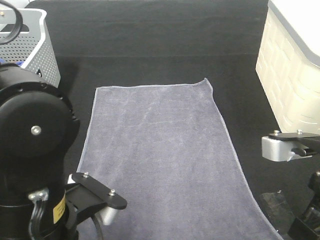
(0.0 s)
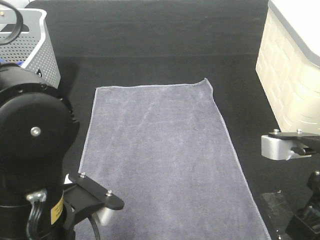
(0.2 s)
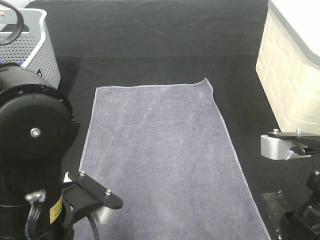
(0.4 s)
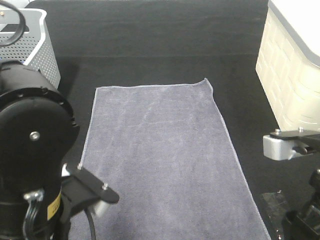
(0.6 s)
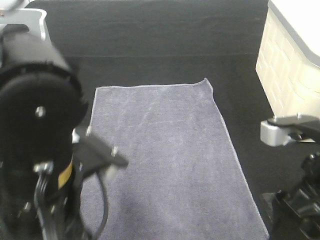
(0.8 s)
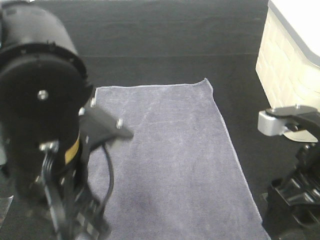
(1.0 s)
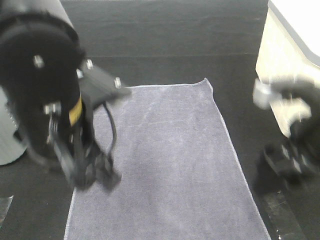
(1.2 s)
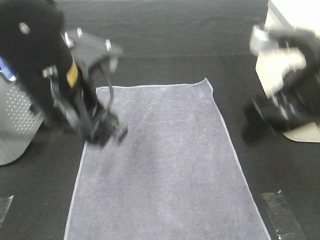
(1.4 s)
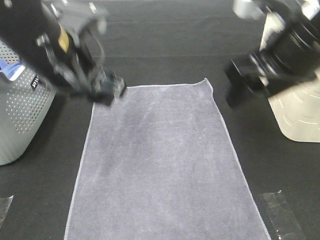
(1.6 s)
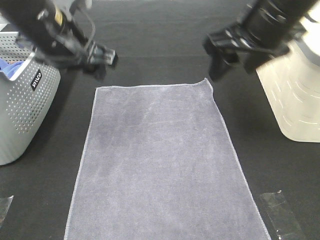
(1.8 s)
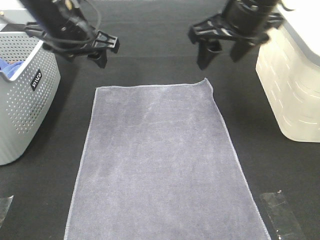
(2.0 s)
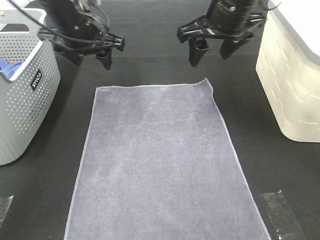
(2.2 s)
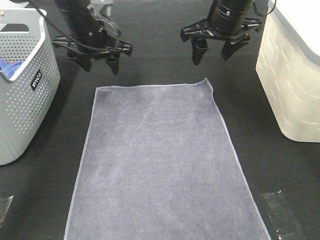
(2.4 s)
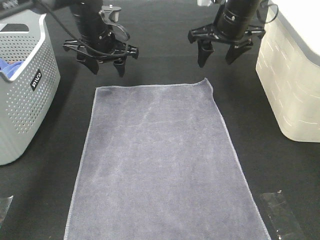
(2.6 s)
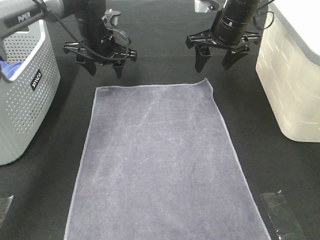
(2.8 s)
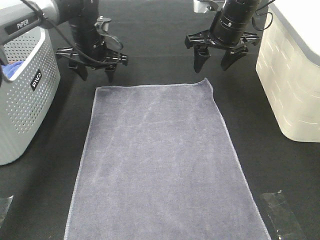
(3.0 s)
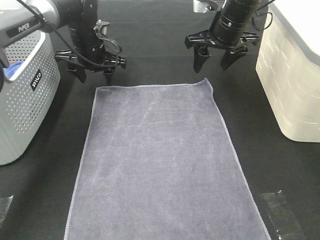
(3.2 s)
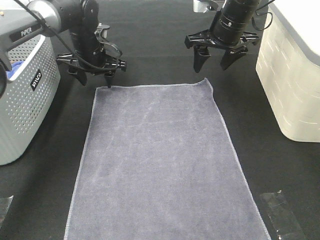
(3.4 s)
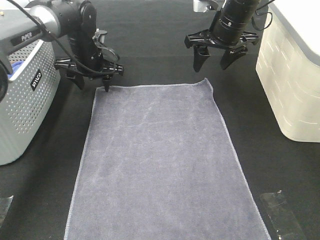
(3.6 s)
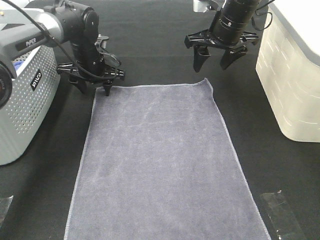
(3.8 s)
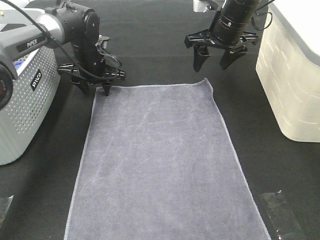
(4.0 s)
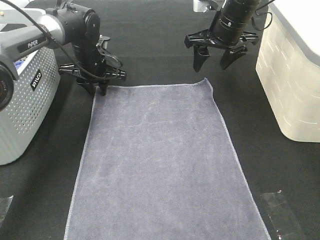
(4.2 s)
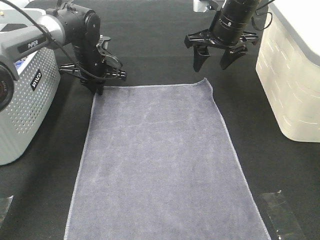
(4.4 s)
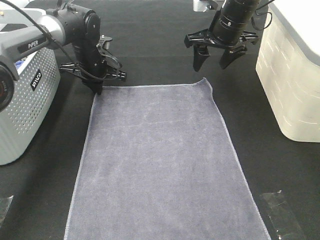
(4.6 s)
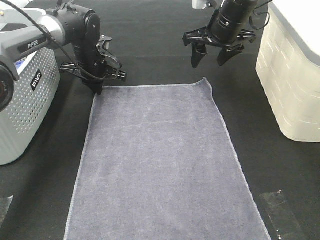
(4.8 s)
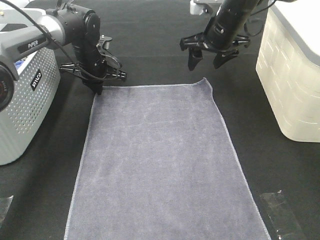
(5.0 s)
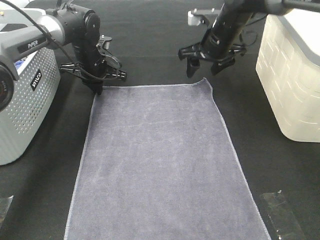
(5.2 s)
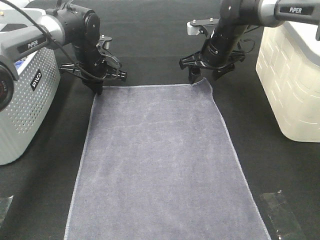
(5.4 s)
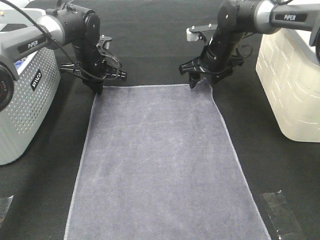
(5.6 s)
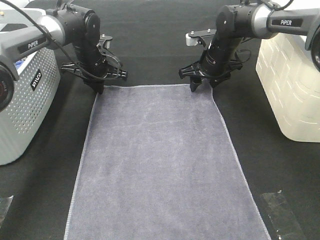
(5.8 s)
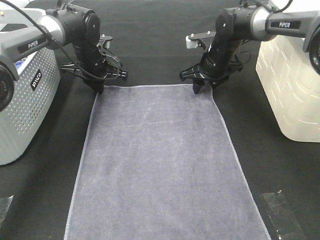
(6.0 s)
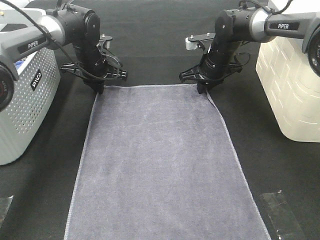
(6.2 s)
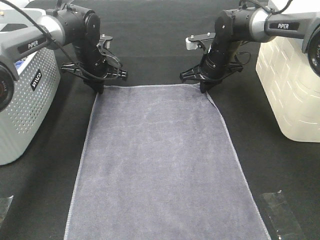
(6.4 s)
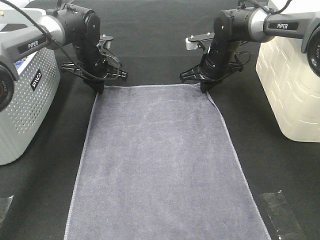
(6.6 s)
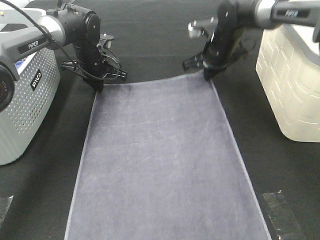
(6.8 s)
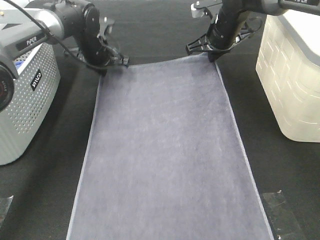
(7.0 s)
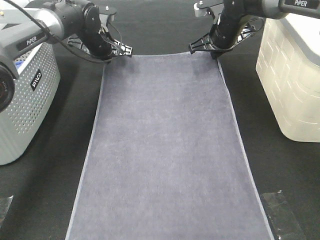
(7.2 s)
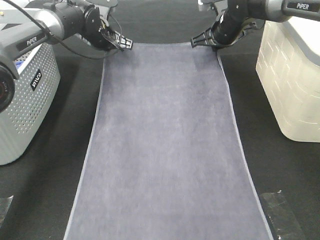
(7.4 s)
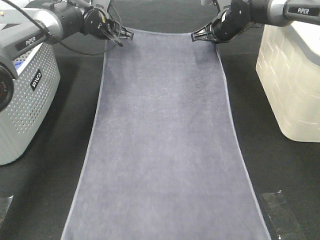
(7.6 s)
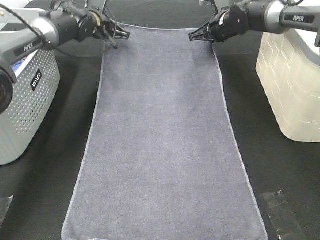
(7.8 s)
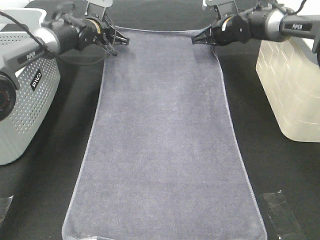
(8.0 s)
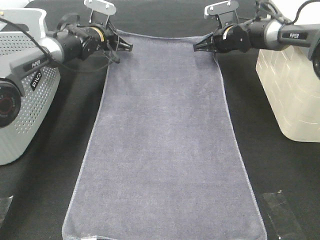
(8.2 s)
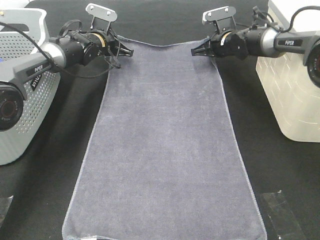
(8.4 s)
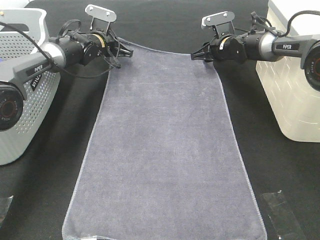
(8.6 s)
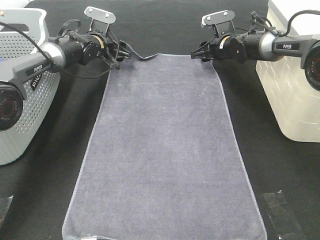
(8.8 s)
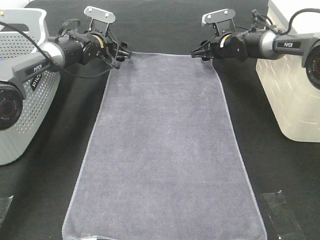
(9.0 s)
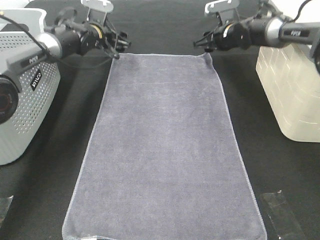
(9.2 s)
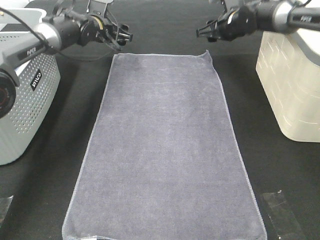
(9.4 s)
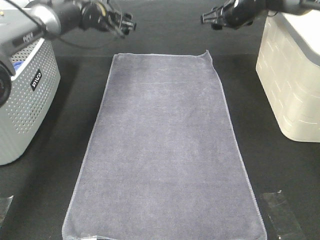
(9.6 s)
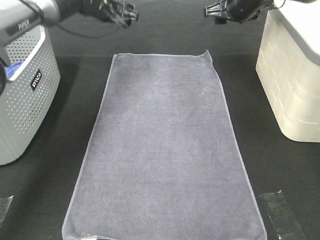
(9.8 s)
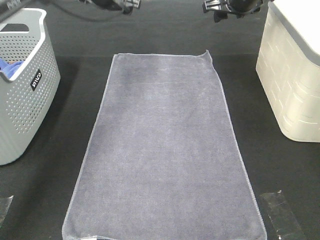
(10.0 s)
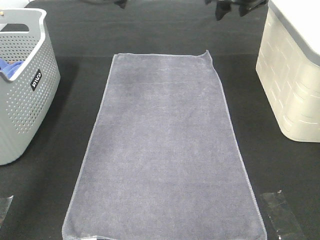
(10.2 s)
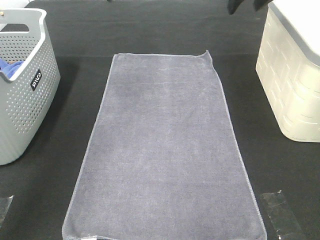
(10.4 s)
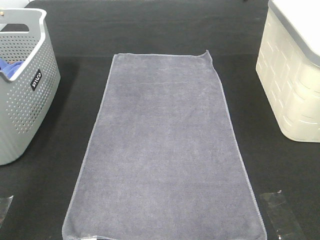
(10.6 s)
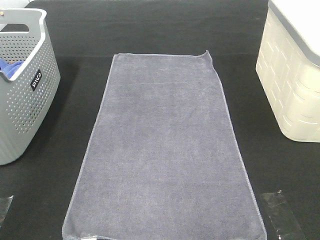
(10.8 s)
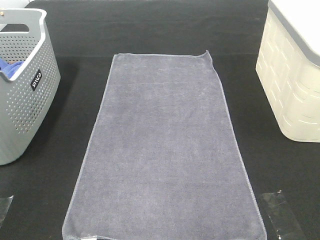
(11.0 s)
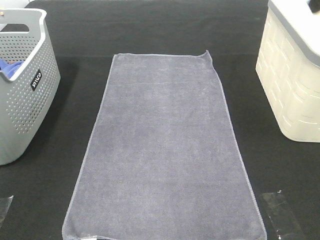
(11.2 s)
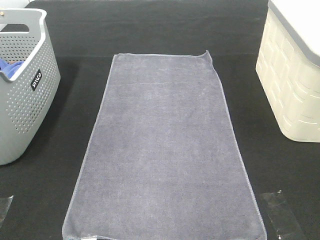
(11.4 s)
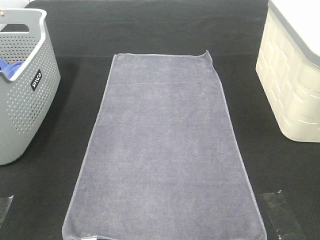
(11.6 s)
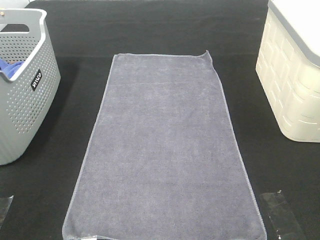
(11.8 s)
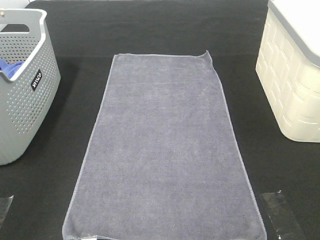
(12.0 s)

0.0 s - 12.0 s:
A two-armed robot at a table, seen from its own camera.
Task of the whole recording: Remove the towel and place it.
Step, 0.0 s - 2.4 s: Left hand:adjust the gray towel.
Step, 0.0 s - 2.4 s: Right hand:adjust the gray towel.
0.0 s - 1.6 s: The left gripper moves forward, approximately 20 cm, and opens up, while the right gripper goes roughly 15 cm forward and upward, and opens.
1.6 s - 3.0 s: The right gripper goes approximately 20 cm forward; the left gripper heads forward and downward, covering about 25 cm.
3.0 s - 4.4 s: The left gripper changes place by some 5 cm, and closes.
4.4 s - 6.0 s: The right gripper travels downward by about 10 cm.
6.0 s - 7.6 s: The right gripper heads upward, covering roughly 5 cm, and closes its fingers. The left gripper goes approximately 10 cm upward and forward.
7.6 s - 9.0 s: The two grippers go roughly 5 cm downward. The right gripper opens up. Meanwhile the left gripper opens.
9.0 s - 10.4 s: The two grippers go some 25 cm upward and backward.
10.4 s - 12.0 s: Both grippers travel together backward, some 40 cm.

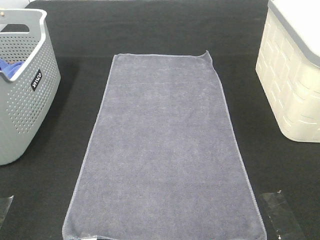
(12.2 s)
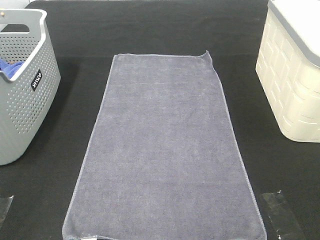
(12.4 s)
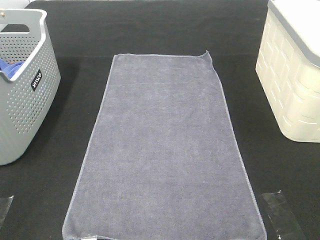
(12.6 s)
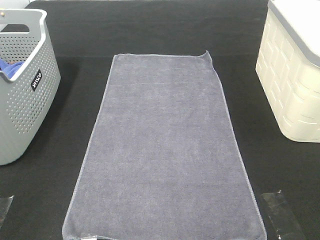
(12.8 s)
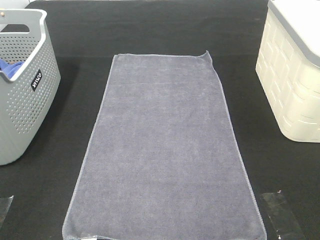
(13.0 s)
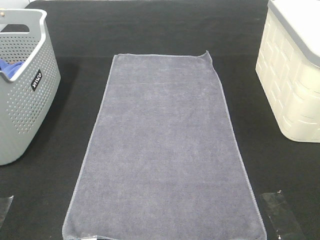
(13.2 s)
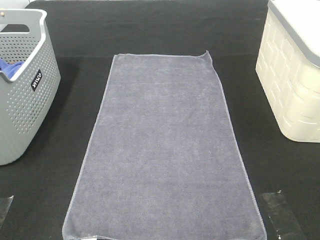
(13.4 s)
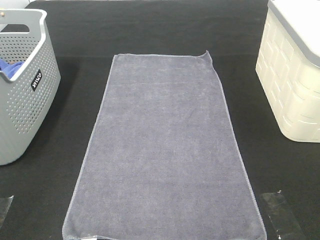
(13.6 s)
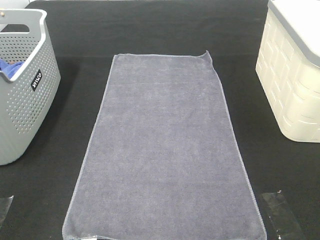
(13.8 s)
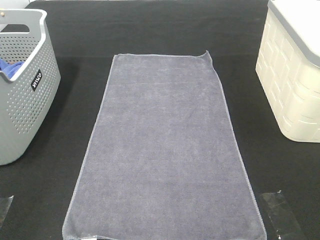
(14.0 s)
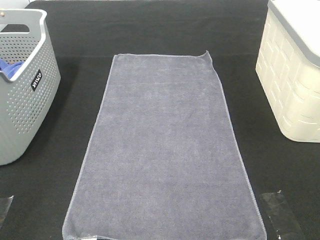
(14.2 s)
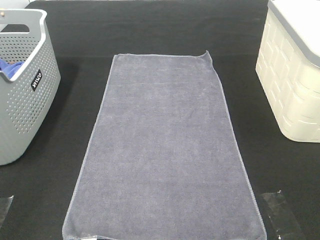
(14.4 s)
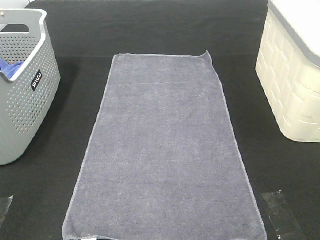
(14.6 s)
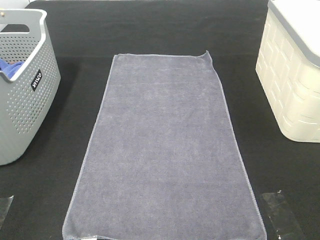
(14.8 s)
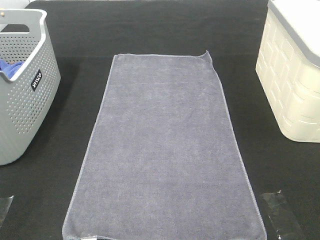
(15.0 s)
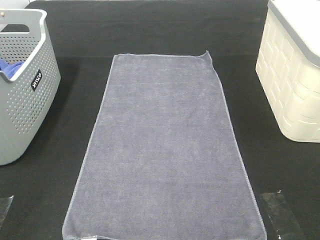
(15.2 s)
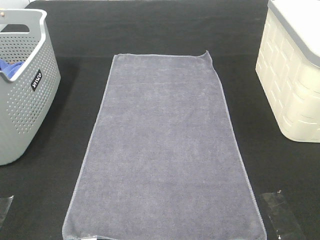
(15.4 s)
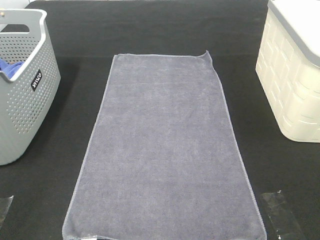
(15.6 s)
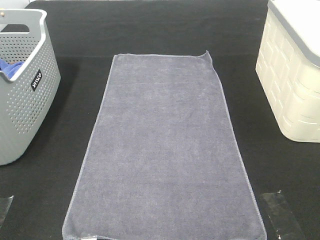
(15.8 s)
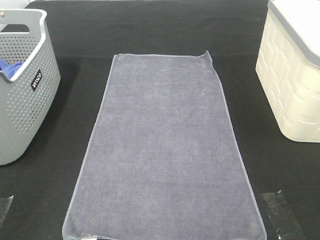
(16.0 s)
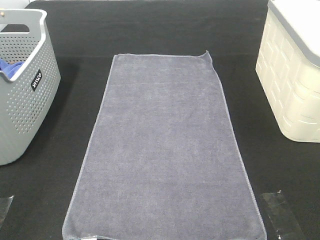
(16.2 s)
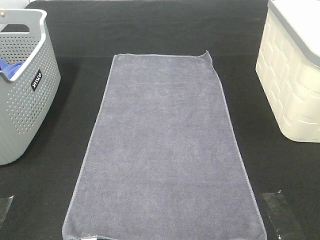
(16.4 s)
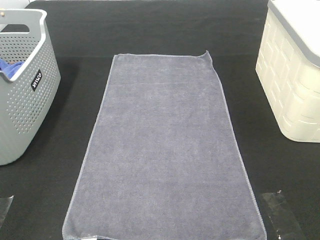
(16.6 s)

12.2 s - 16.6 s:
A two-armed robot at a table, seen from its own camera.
Task of the whole recording: Remove the towel and place it.
15.2 s - 16.6 s: Both grippers stay put.

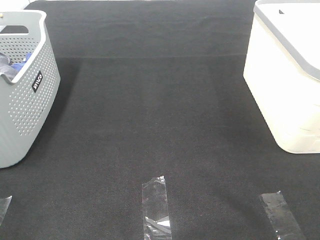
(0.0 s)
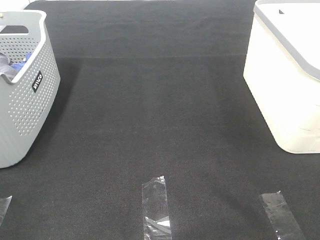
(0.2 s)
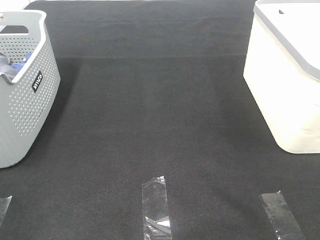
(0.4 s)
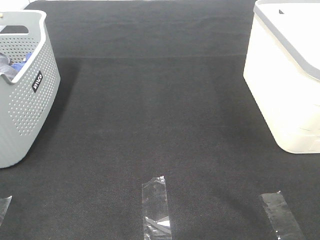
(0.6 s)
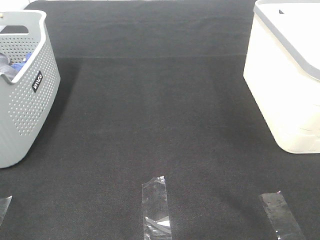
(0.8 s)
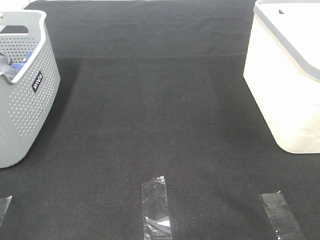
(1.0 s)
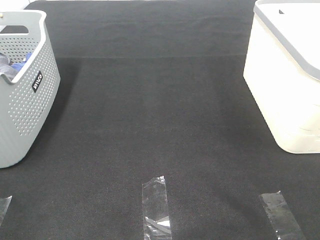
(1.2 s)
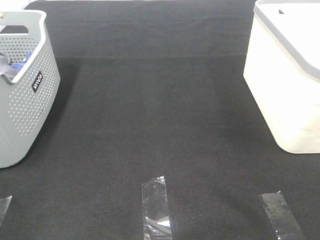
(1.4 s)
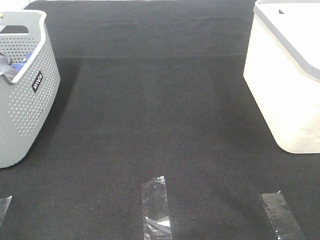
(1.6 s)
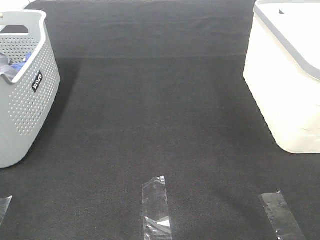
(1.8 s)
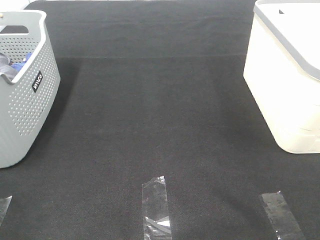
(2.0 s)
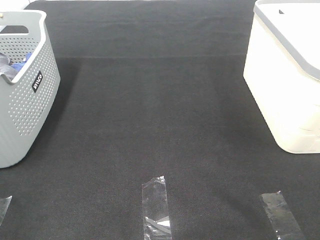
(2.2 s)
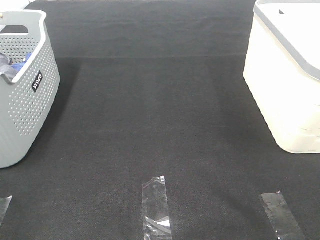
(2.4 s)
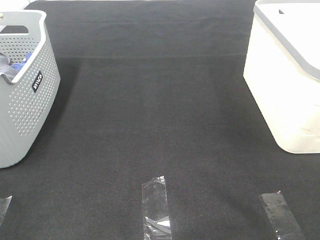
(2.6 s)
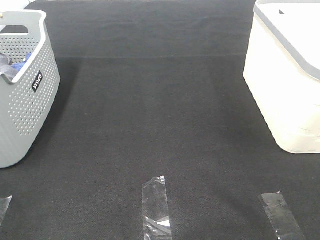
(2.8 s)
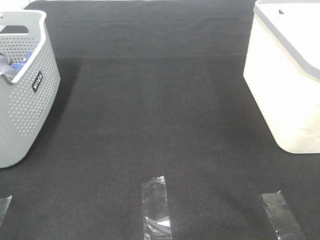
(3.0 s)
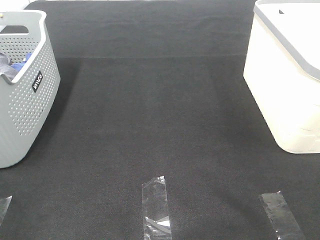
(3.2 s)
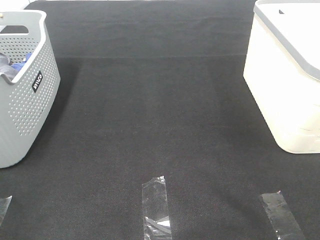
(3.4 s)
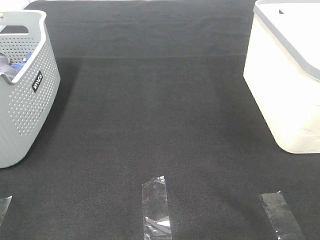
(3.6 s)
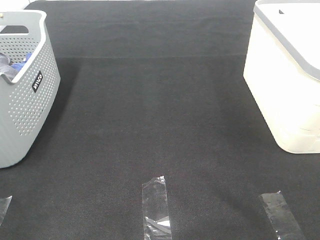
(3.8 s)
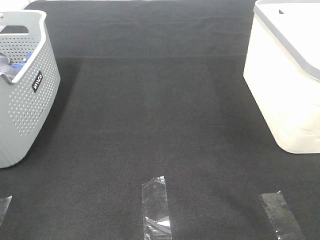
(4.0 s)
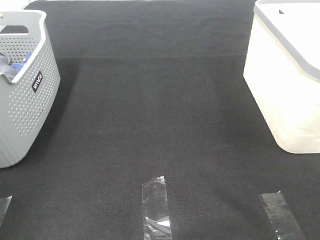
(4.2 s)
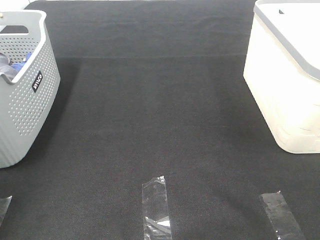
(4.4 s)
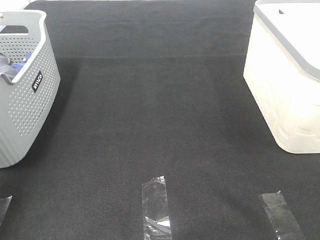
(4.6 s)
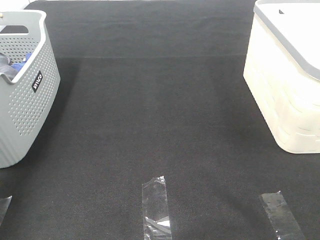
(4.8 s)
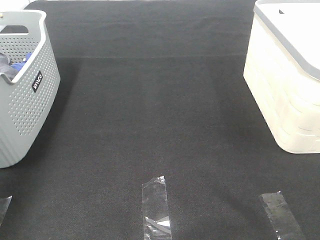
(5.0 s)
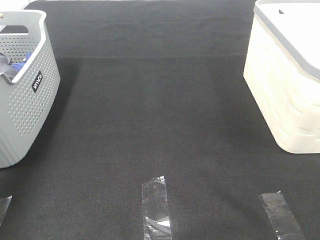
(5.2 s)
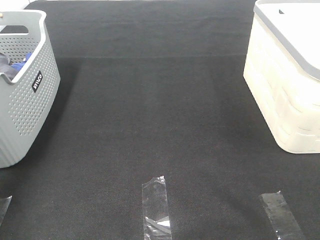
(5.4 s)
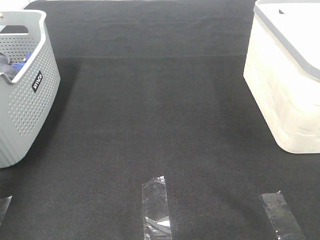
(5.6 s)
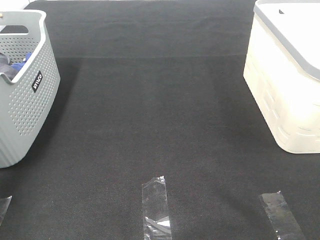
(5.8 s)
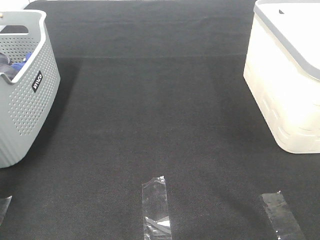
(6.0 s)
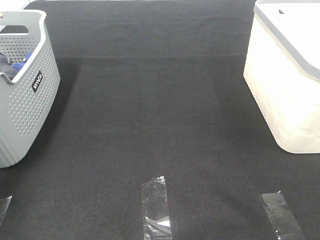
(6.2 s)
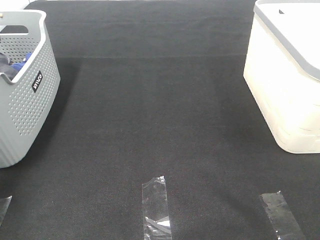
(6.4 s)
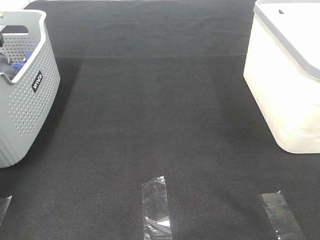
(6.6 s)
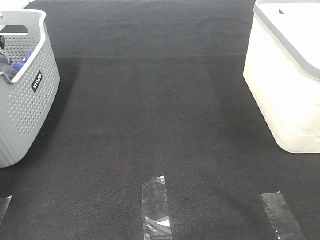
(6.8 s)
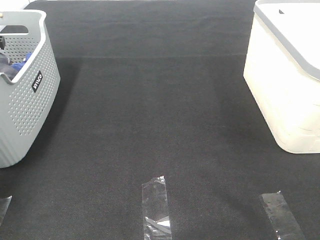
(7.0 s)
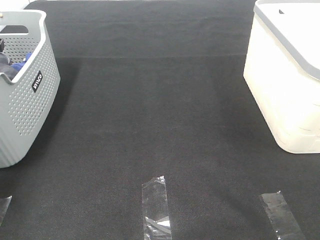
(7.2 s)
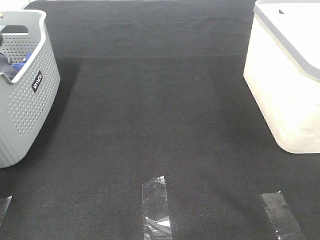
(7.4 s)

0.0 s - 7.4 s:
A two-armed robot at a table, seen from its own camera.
Task of the whole recording: Remove the towel and place it.
0.0 s - 3.0 s: The two grippers keep their place.
4.4 s - 6.0 s: The left gripper goes about 30 cm forward.
